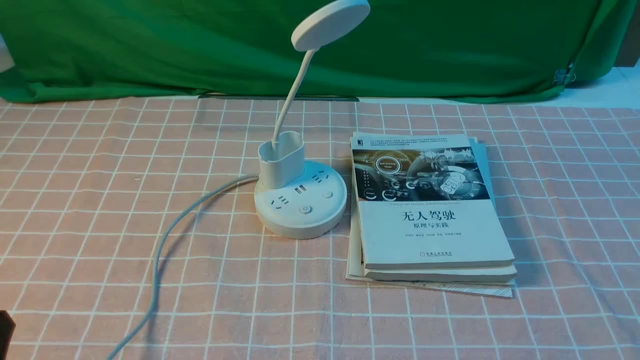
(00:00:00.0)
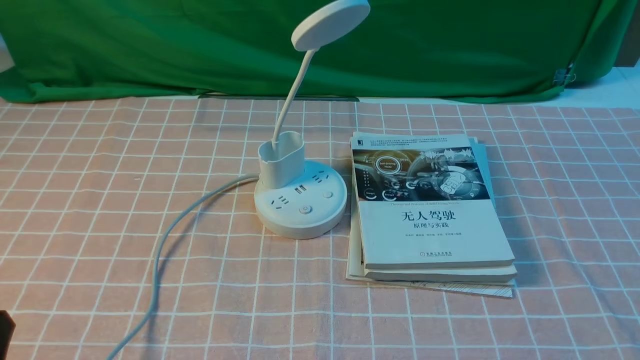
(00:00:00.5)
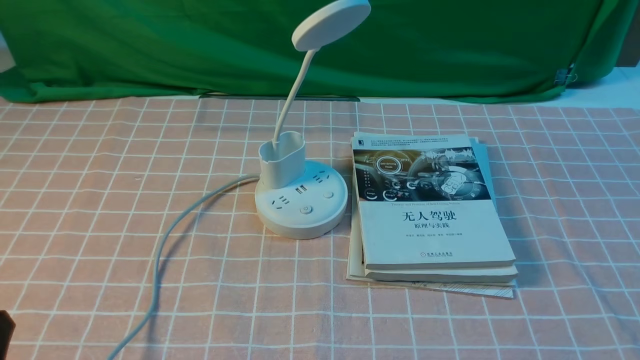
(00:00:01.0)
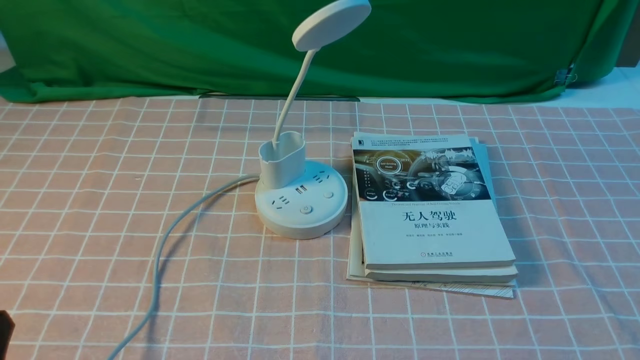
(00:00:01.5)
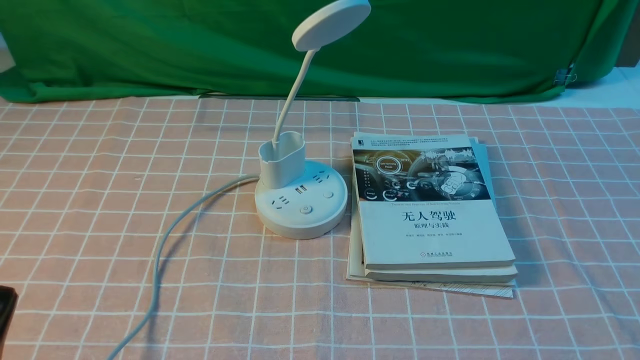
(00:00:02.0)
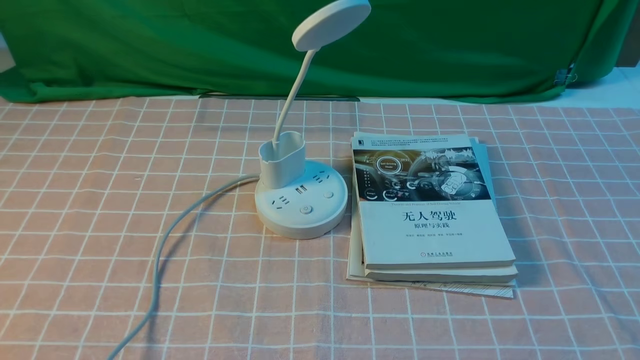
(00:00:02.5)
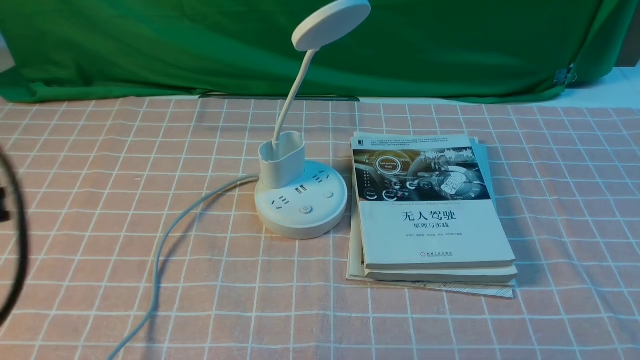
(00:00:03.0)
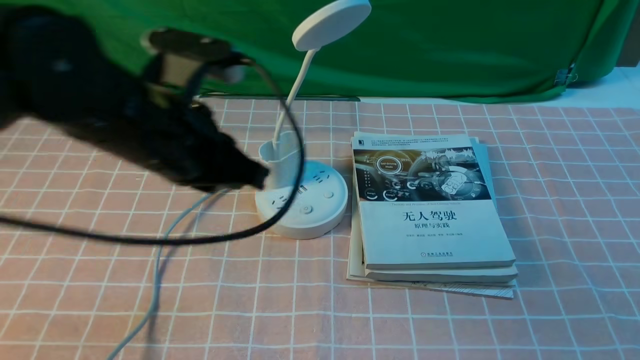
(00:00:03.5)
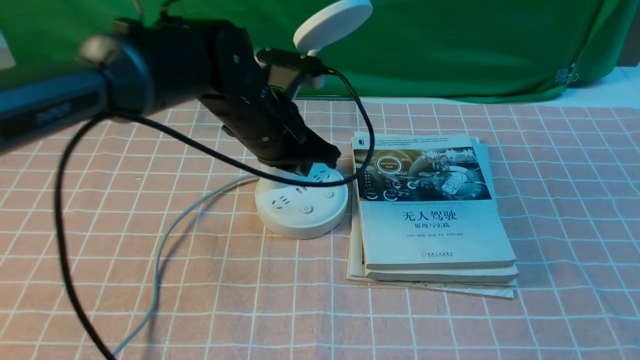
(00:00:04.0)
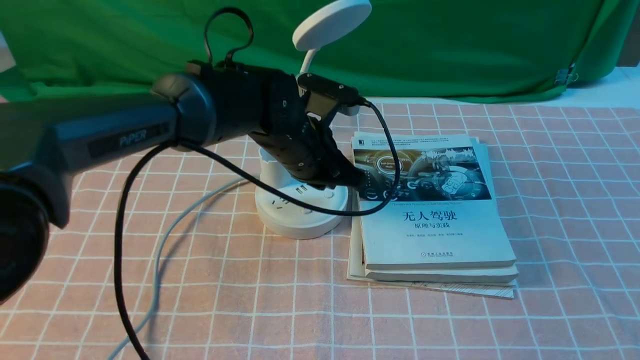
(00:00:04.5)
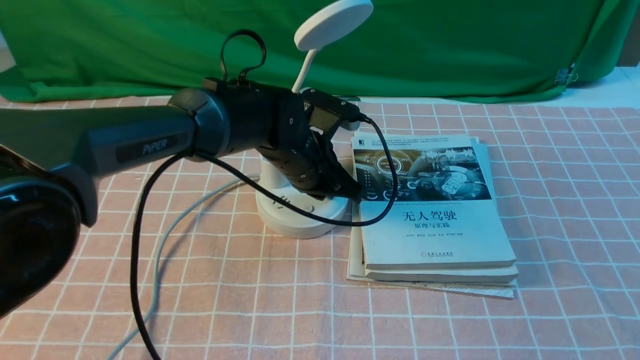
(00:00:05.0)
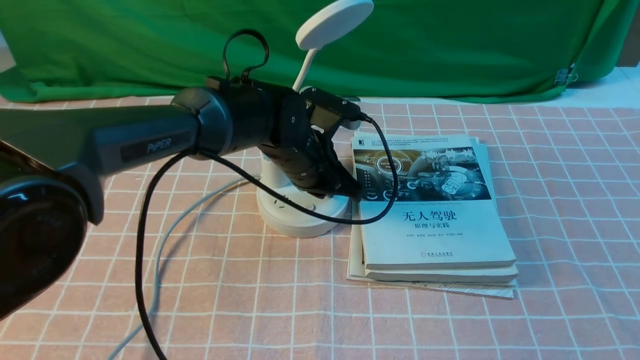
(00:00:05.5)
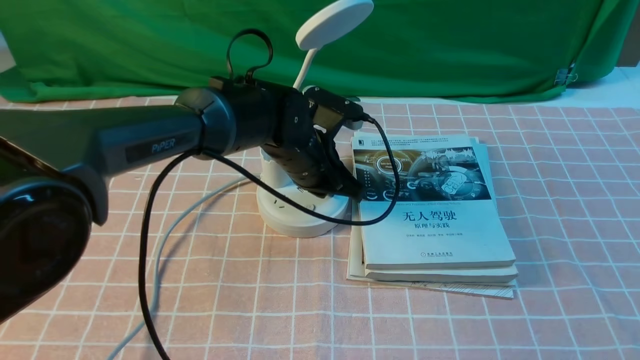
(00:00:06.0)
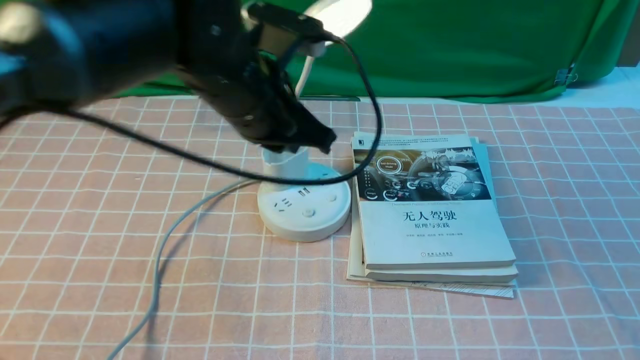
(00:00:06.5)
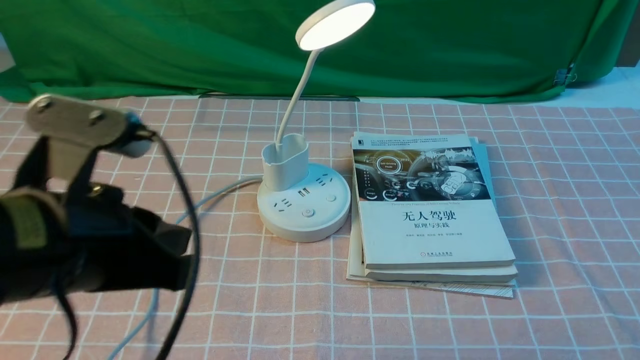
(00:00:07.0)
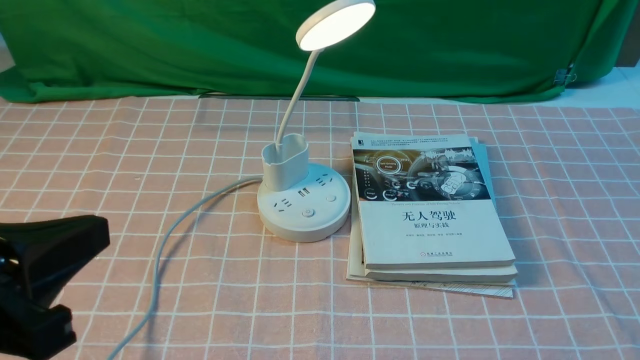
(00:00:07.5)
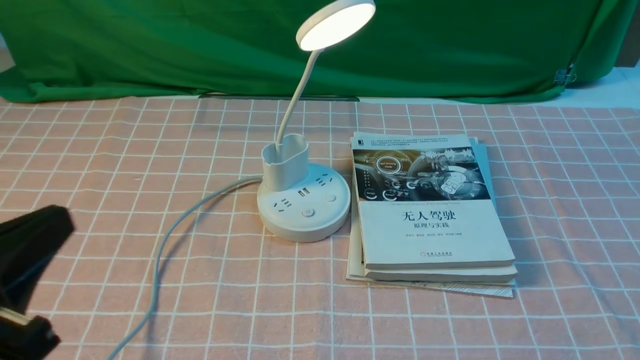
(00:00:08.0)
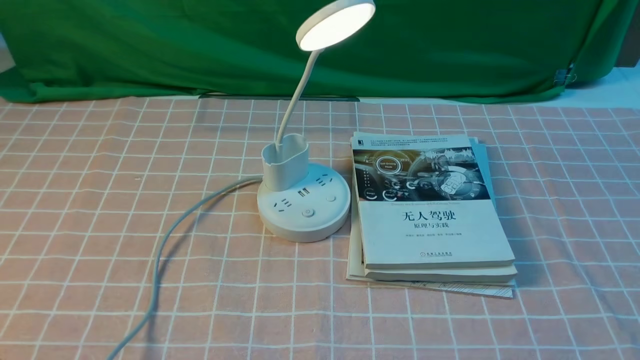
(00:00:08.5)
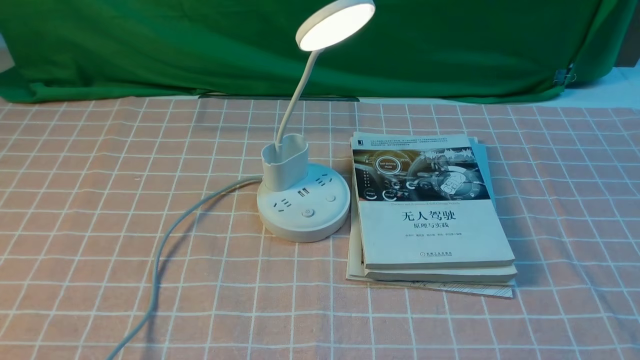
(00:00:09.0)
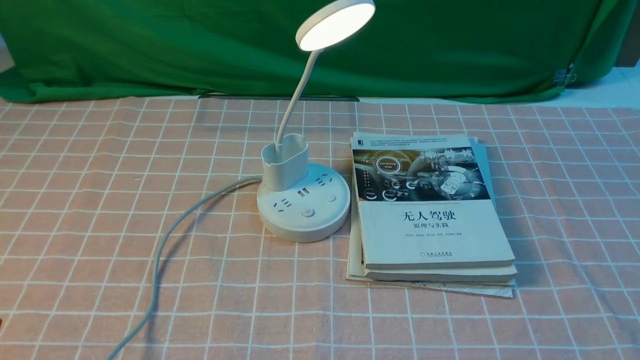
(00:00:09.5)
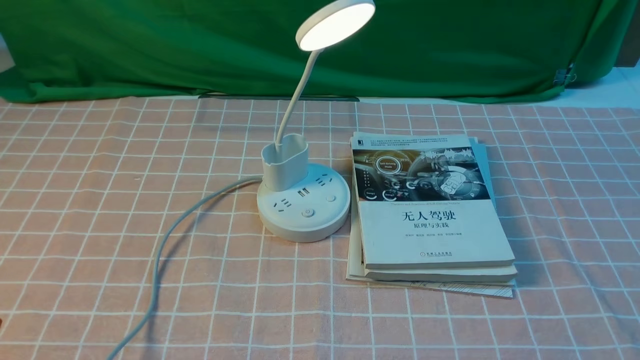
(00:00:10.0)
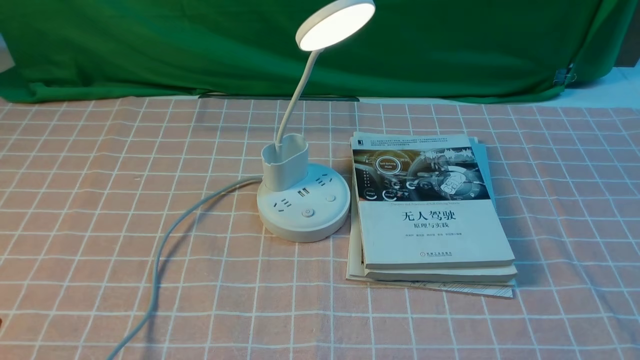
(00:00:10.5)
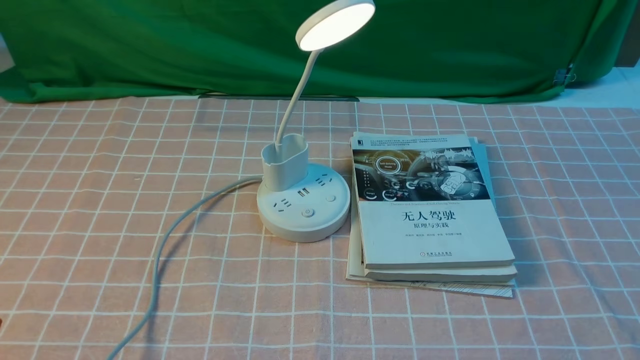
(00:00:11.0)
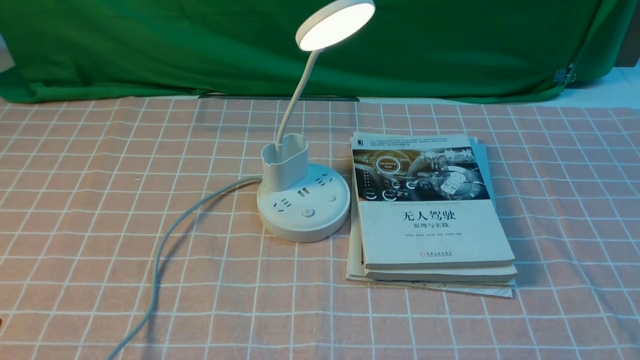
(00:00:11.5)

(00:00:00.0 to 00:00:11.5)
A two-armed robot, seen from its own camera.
Step, 00:00:00.0 - 00:00:06.0: use the left arm to press the button switch on the lamp holder.
00:00:02.0 - 00:00:04.0: The left gripper shifts about 40 cm forward and to the right, and opens up.
00:00:04.0 - 00:00:06.0: The left gripper moves downward, roughly 5 cm.
00:00:06.0 - 00:00:07.5: The left gripper shifts approximately 40 cm backward, to the left and upward.
00:00:07.5 - 00:00:09.5: The left gripper heads downward and to the left, covering some 15 cm.
00:00:09.5 - 00:00:11.5: Neither gripper changes place.
